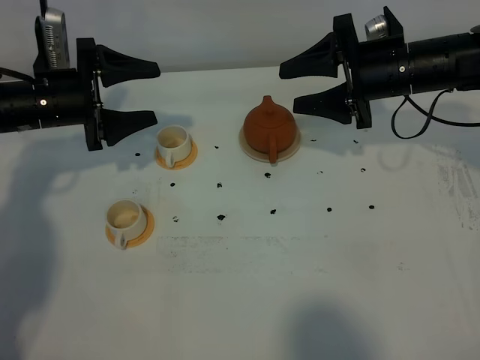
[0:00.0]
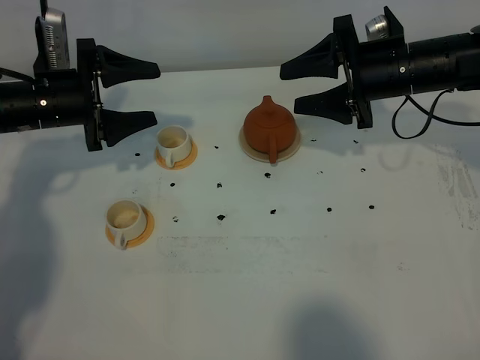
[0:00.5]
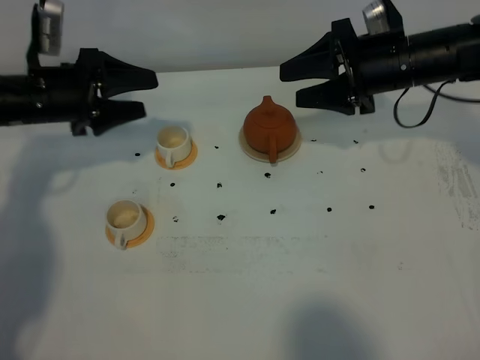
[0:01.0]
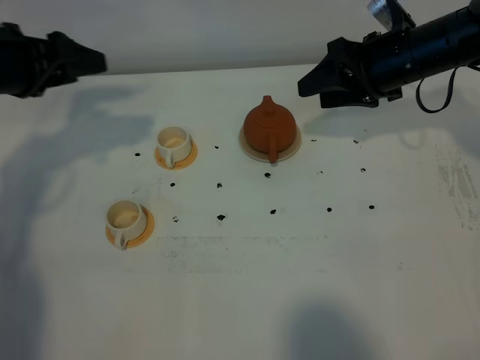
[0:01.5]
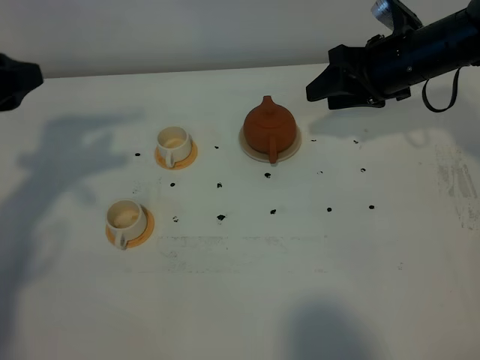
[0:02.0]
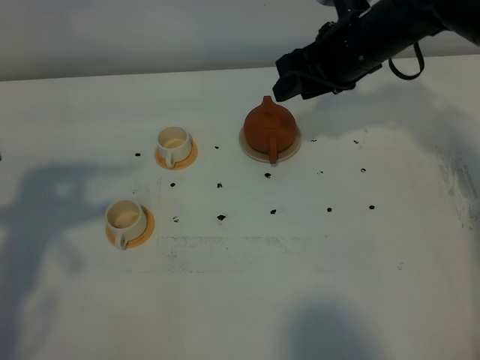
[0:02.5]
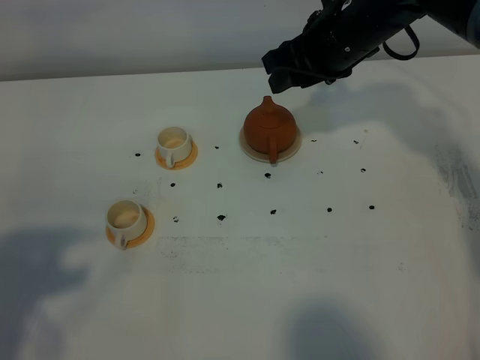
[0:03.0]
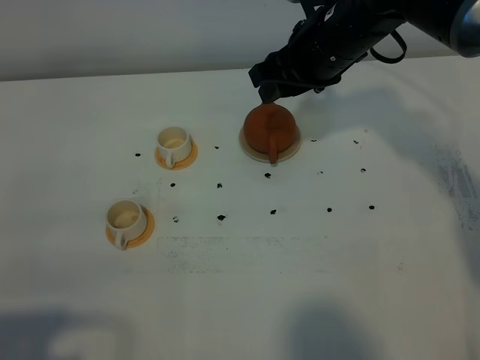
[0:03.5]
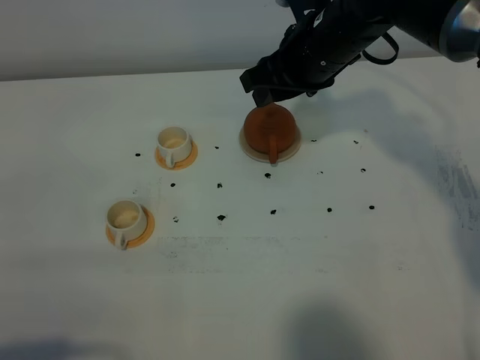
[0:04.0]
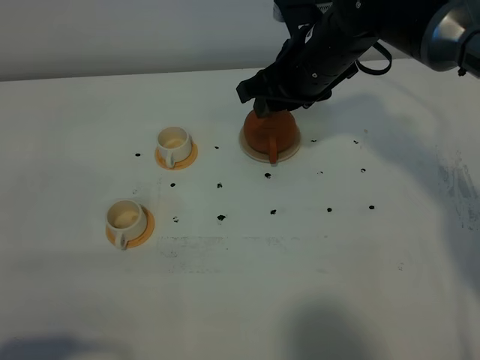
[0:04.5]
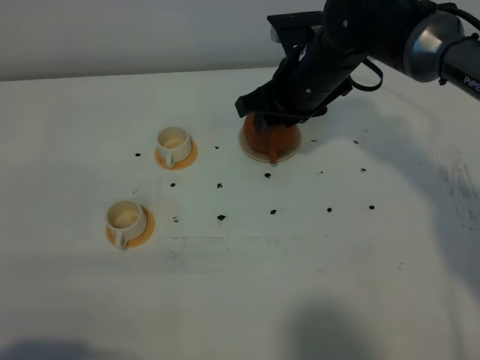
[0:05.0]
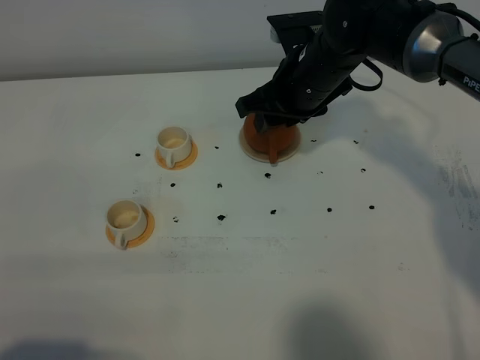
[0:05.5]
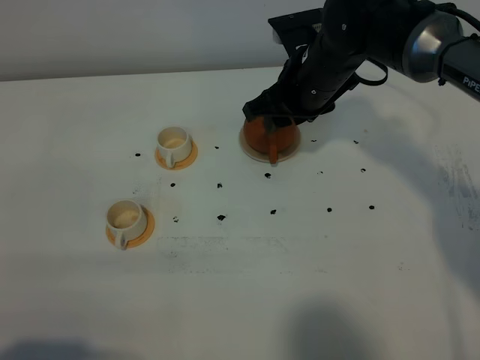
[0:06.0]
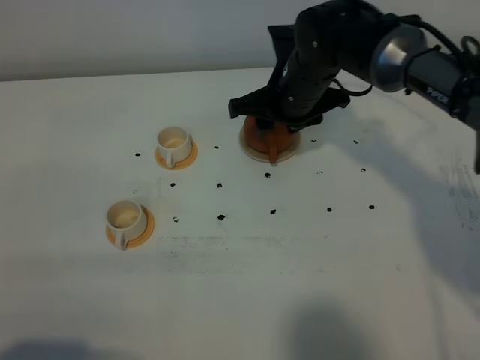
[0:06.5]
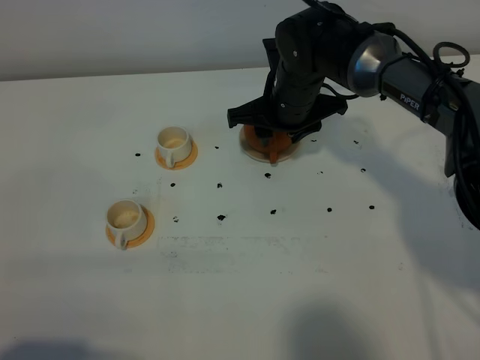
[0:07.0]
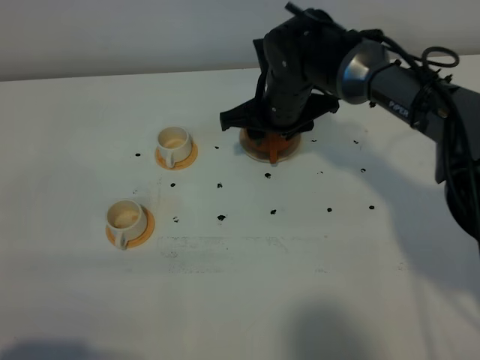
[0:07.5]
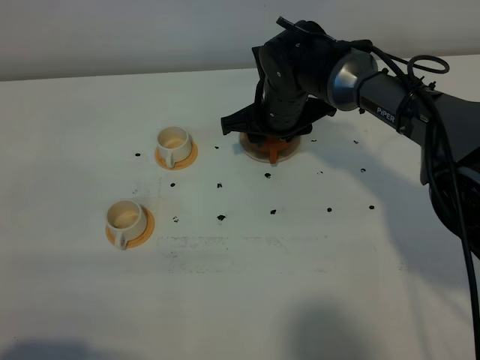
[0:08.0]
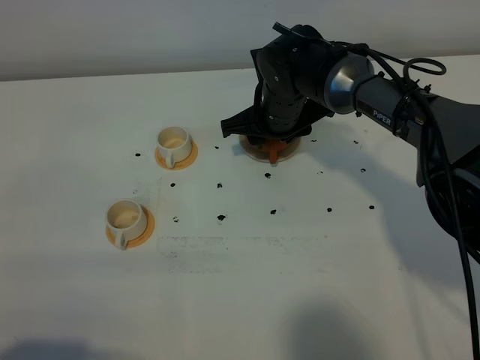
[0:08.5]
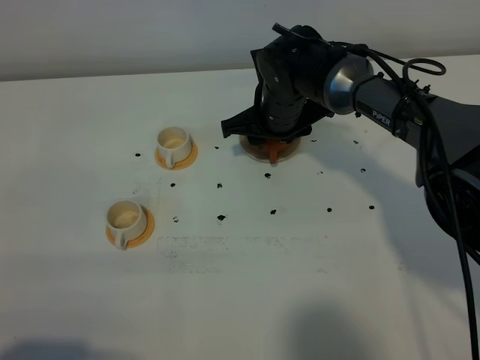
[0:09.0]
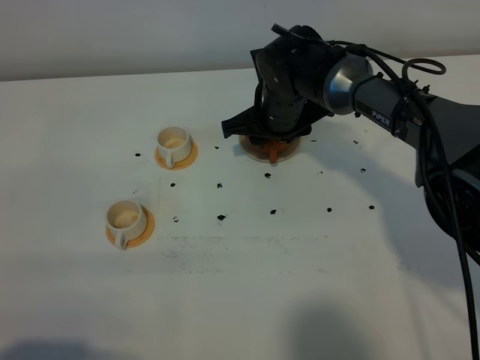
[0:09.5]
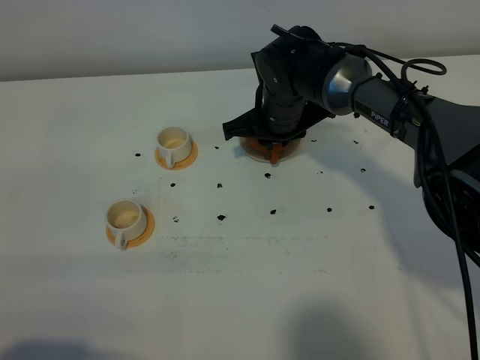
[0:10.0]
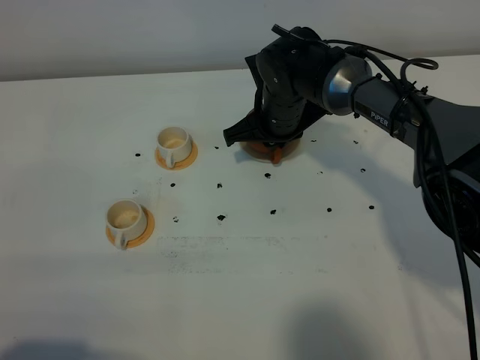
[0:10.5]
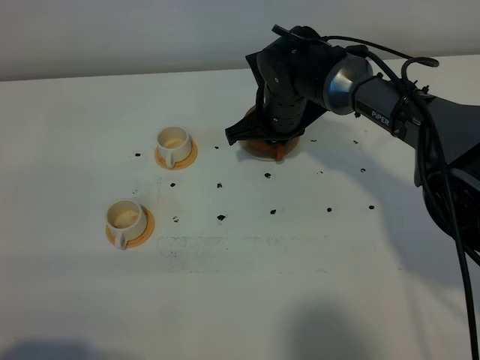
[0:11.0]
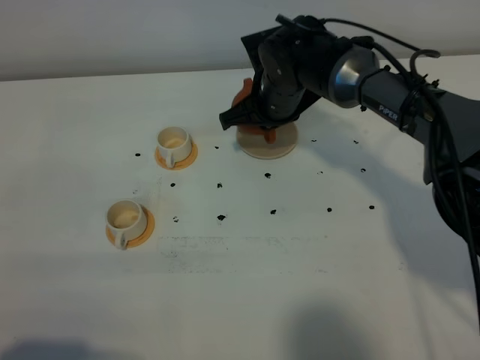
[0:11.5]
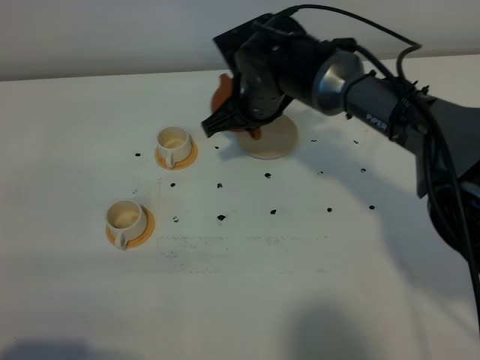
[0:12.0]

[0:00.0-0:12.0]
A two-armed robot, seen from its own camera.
Task of the whole recording: grasp the brown teapot and pour the tea into the two white teacups one by one, put the brown teapot back in its original place.
Step, 0:00.0 to 0:11.5: Pick up the teapot with the right gripper.
0:00.0 to 0:02.0: The left gripper heads upward and backward, covering some 15 cm, and closes up.
0:02.0 to 0:04.0: The left gripper goes approximately 30 cm backward, while the right gripper travels to the left by about 10 cm.
0:04.0 to 0:06.0: The right gripper goes some 5 cm downward.
0:06.0 to 0:08.0: The right gripper goes about 5 cm downward.
0:08.0 to 0:10.0: The right gripper closes up.
0:10.0 to 0:12.0: The right gripper changes place by some 5 cm.

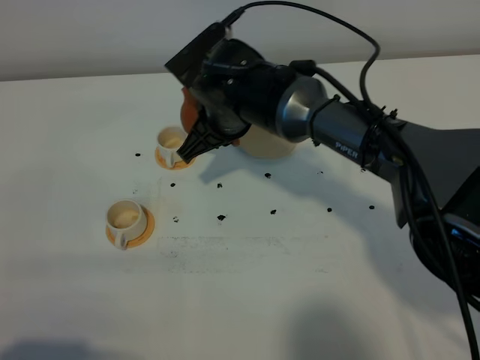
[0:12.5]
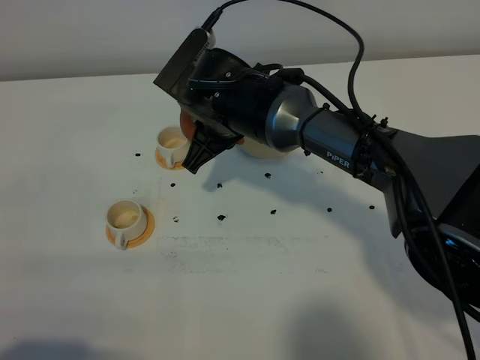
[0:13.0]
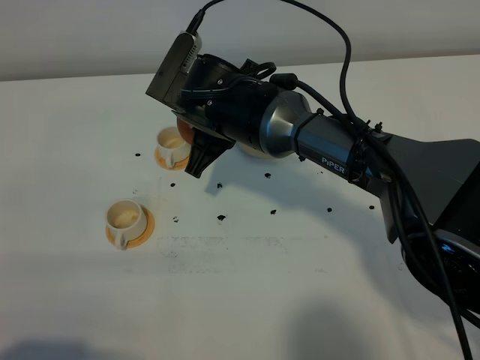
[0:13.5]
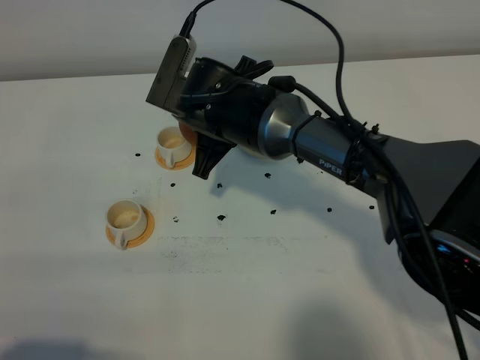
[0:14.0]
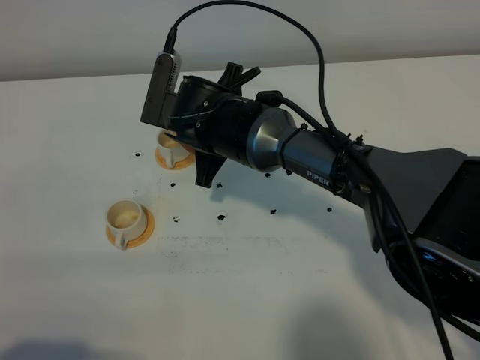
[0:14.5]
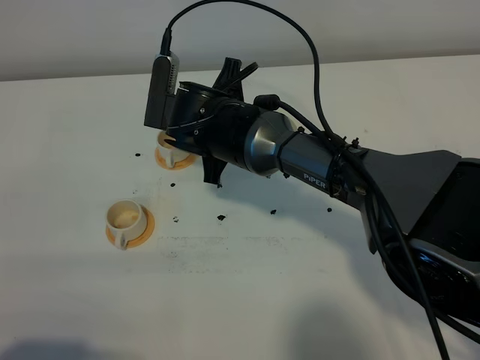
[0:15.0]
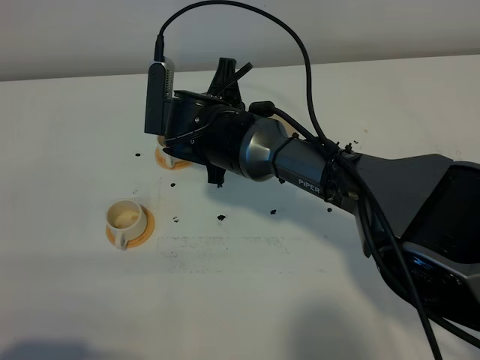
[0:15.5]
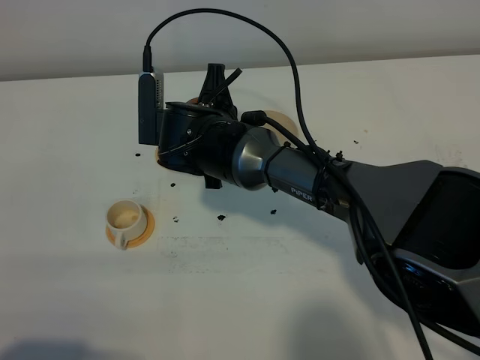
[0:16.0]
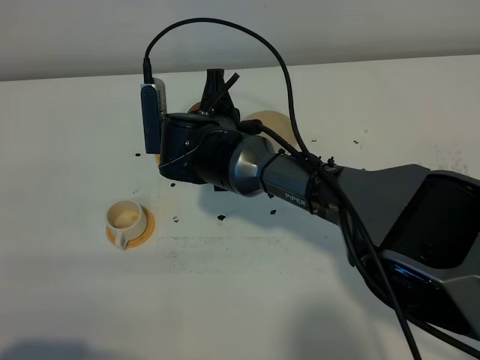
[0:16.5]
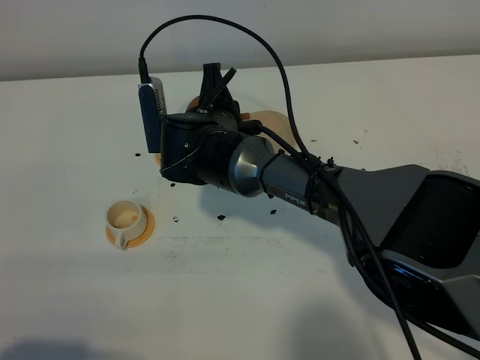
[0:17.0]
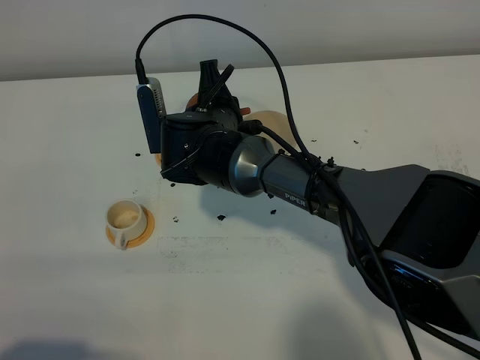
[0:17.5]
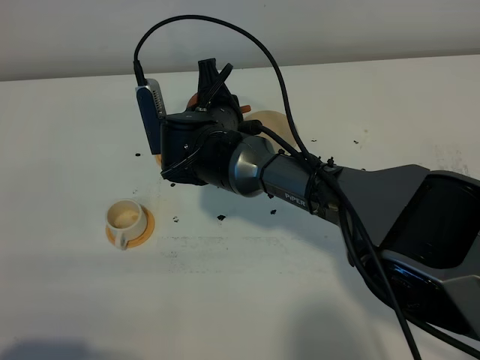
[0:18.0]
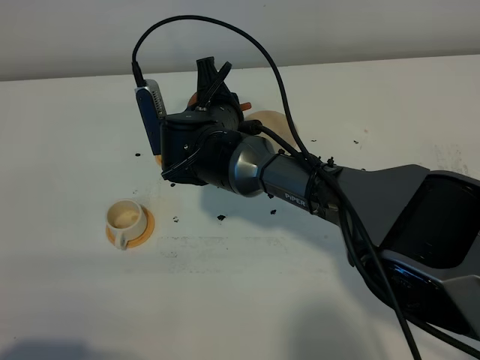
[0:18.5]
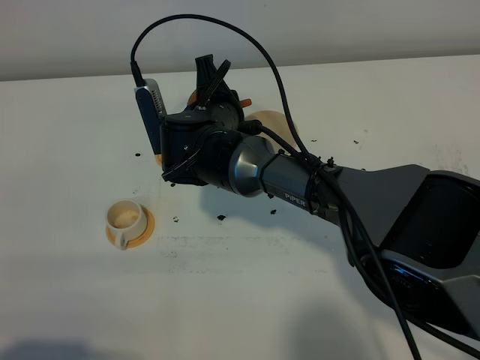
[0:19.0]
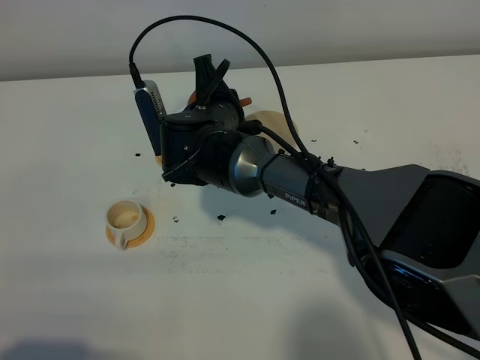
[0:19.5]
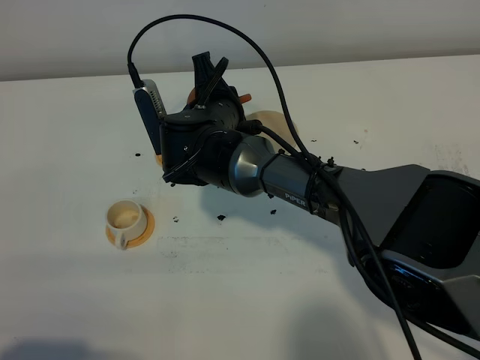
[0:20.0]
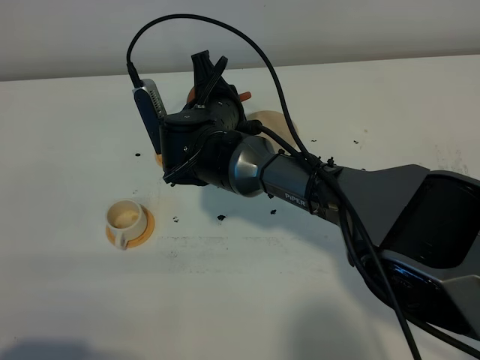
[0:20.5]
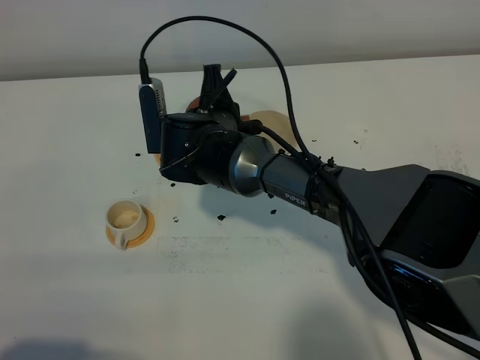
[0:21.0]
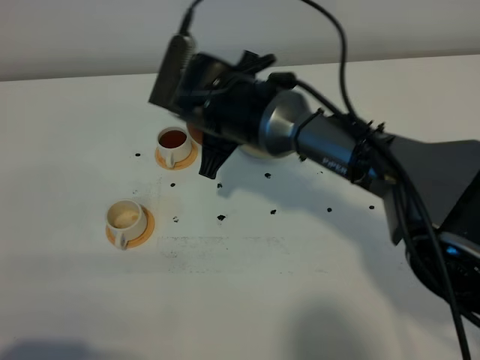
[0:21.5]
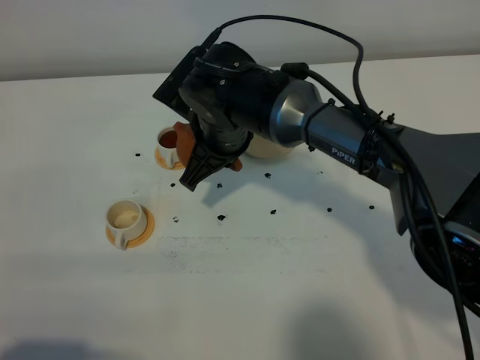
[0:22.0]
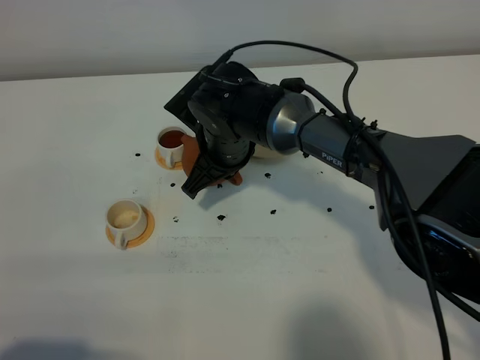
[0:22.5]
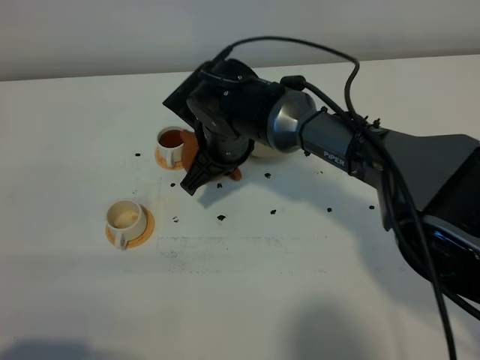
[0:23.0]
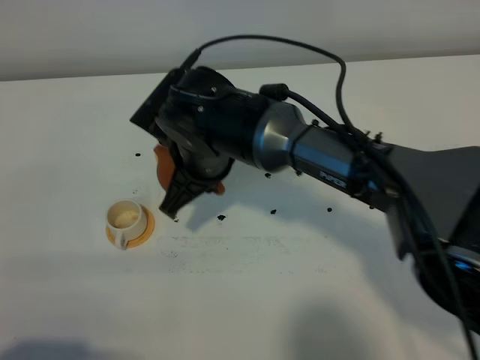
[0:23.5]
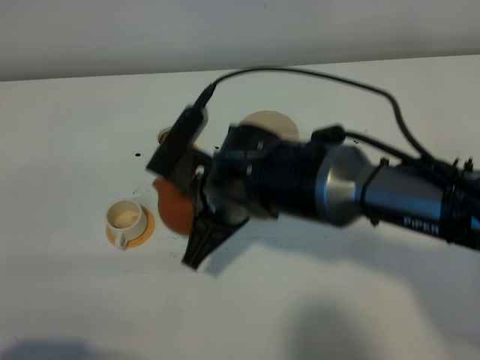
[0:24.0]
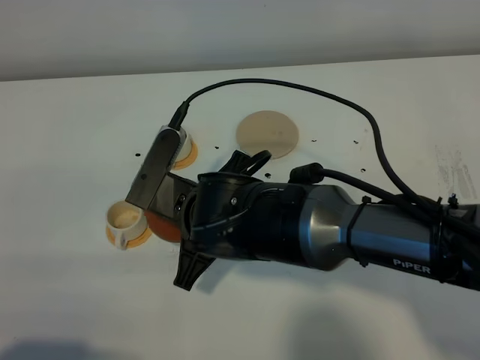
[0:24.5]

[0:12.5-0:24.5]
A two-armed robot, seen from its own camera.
Task of the whole recording: grasp the brown teapot and pour the tea into the two white teacups one by one, put the brown teapot back in its original place.
0:16.5 to 0:20.5: There are only small adjustments of the grippers.
0:22.5 to 0:24.5: The right gripper moves backward, some 15 cm.

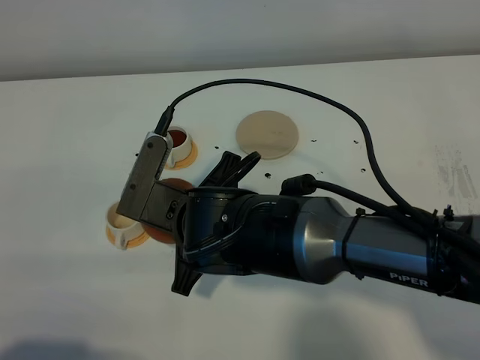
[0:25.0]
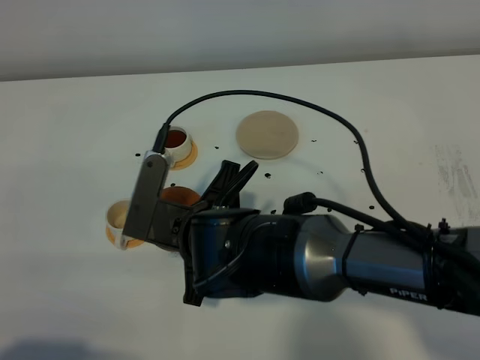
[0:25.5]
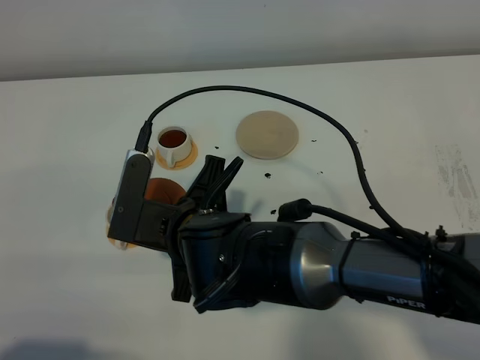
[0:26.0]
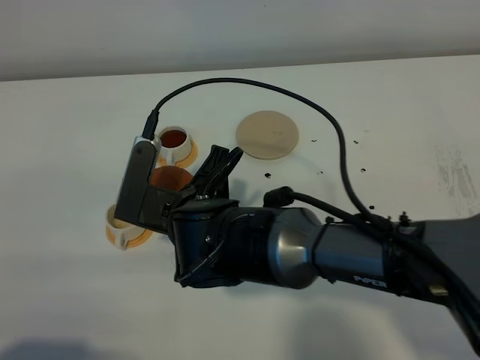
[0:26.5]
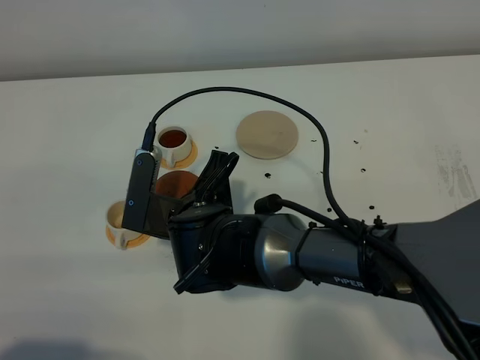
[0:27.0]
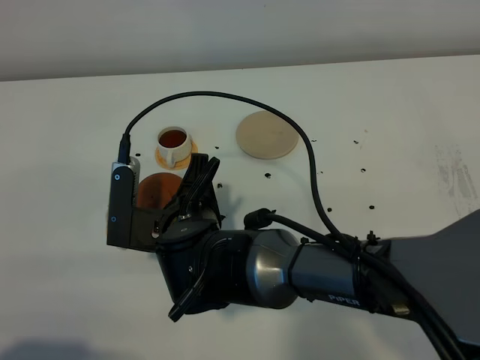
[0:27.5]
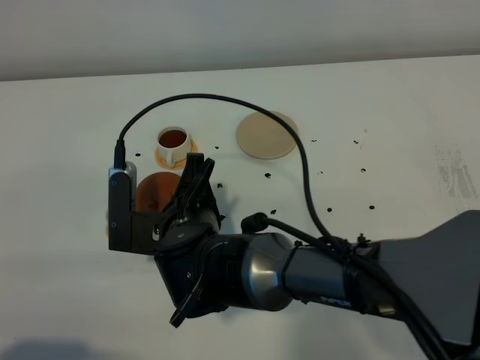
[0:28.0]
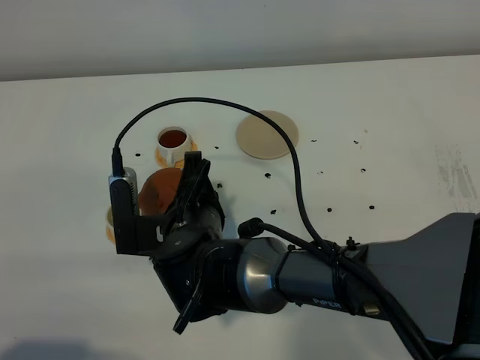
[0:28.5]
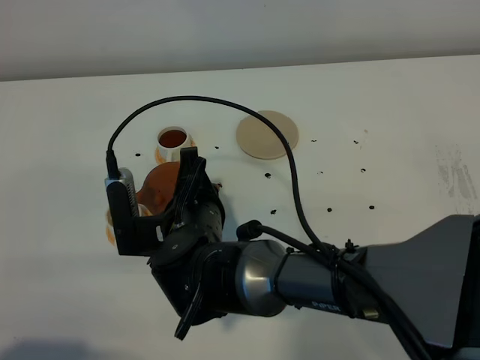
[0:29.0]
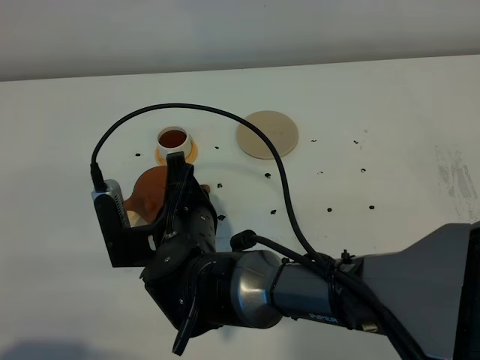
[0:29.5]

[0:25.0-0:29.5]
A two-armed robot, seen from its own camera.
Task of the whole recording: grasp the brown teapot and pour the tea into the two white teacups one by one, put the brown teapot back in its original place.
0:25.0 to 0:27.0: There are only small adjustments of the grippers.
